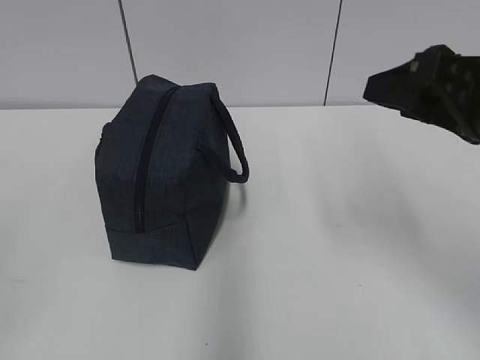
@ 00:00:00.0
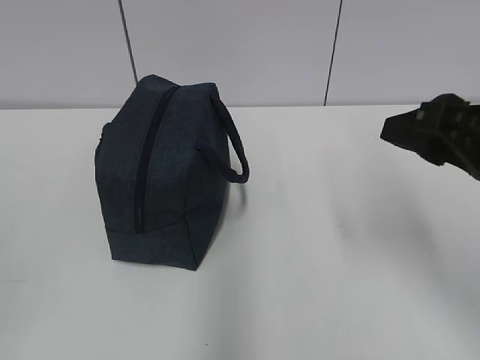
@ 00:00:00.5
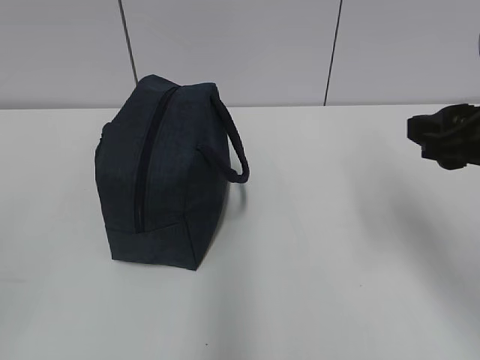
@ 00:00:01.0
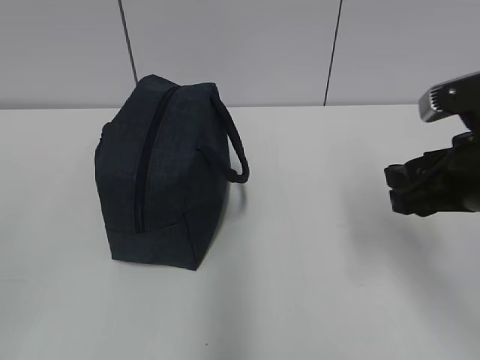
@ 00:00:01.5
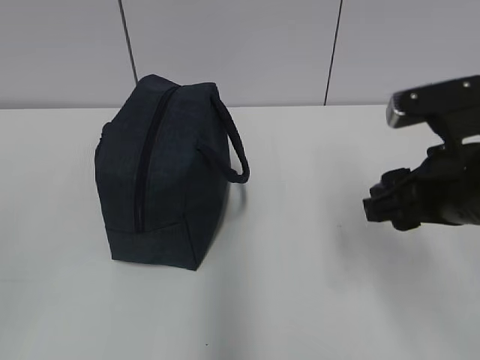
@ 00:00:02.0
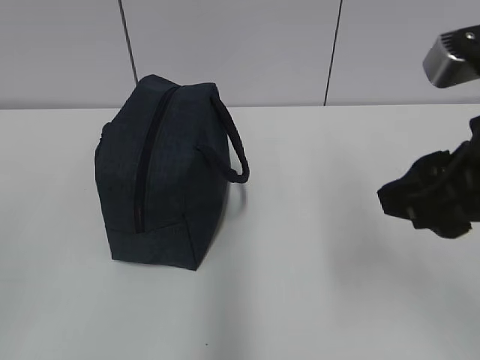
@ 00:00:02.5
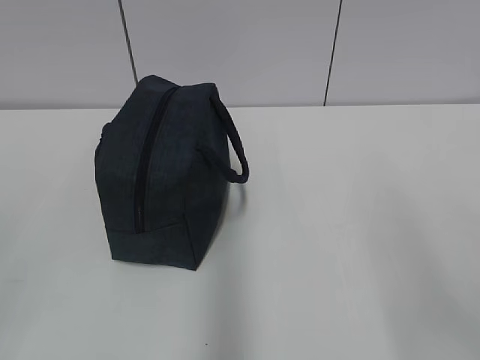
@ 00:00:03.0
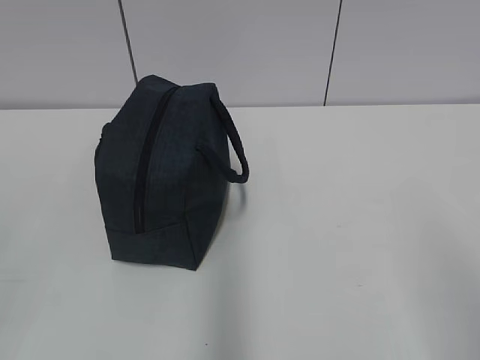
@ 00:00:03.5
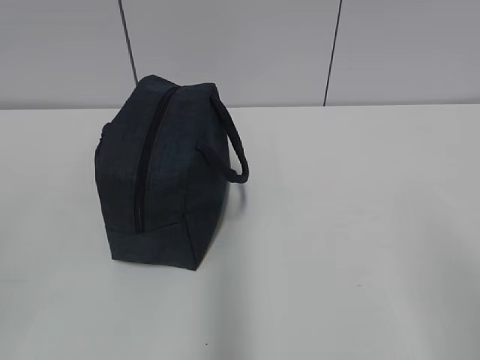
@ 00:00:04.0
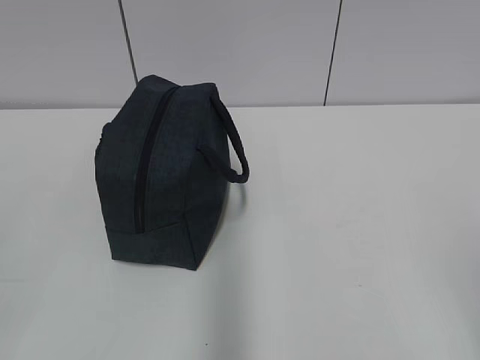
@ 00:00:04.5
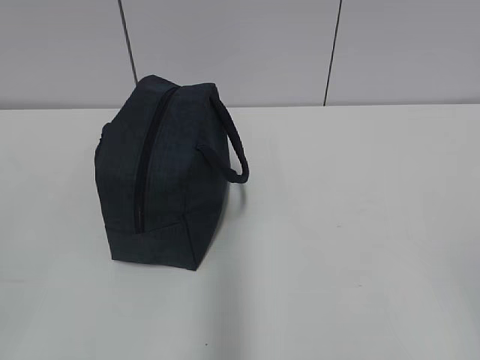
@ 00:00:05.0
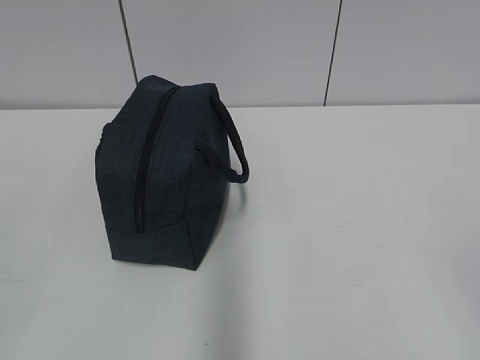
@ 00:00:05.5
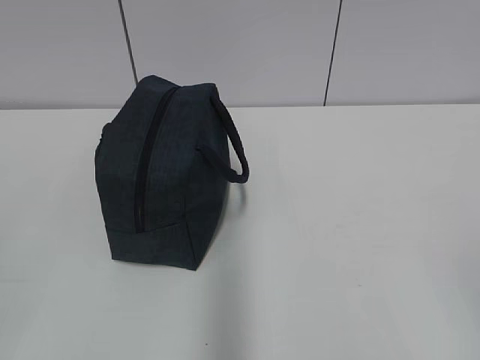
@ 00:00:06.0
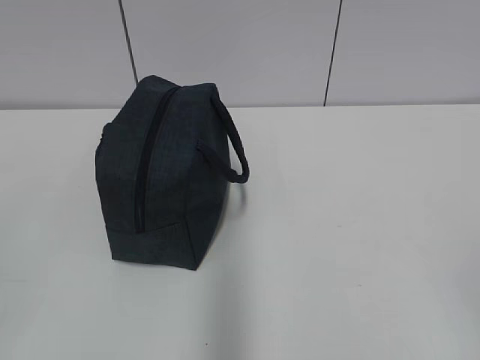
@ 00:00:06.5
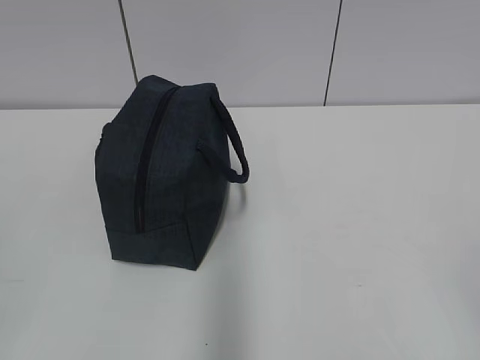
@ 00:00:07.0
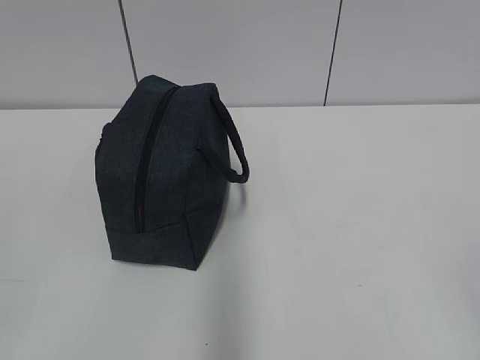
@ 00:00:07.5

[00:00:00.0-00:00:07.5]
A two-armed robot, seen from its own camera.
00:00:00.0 to 00:00:02.0: The right gripper is displaced downward by approximately 5 cm.
00:00:02.0 to 00:00:04.0: The right gripper travels backward and to the right by roughly 20 cm.
00:00:05.5 to 00:00:07.5: Neither gripper changes place.
